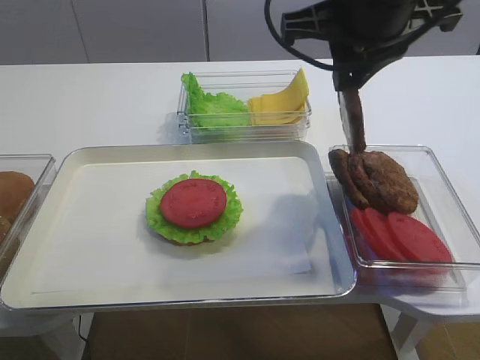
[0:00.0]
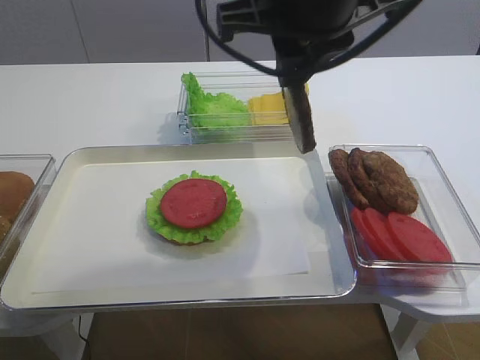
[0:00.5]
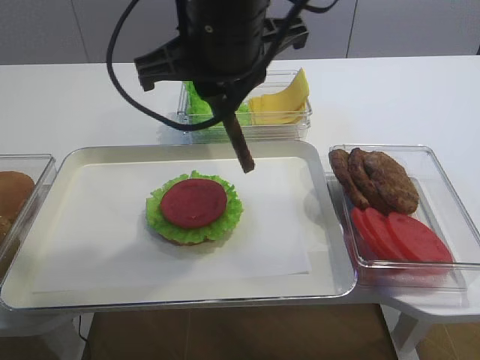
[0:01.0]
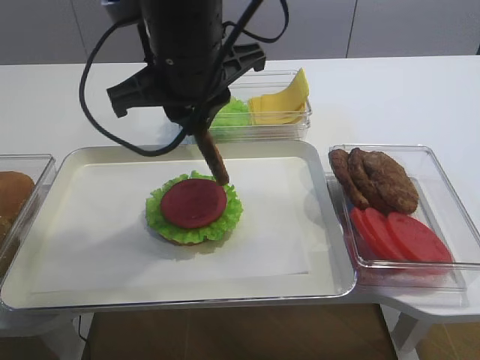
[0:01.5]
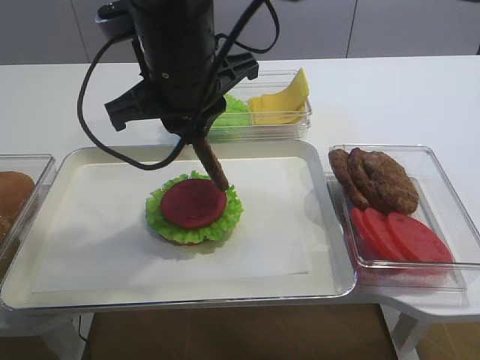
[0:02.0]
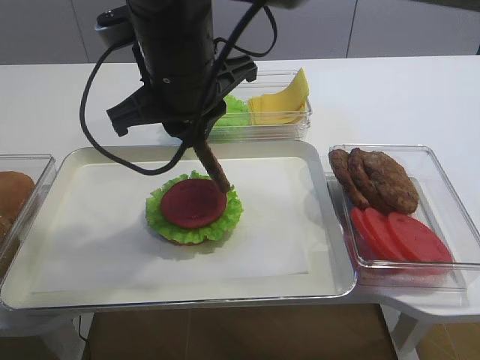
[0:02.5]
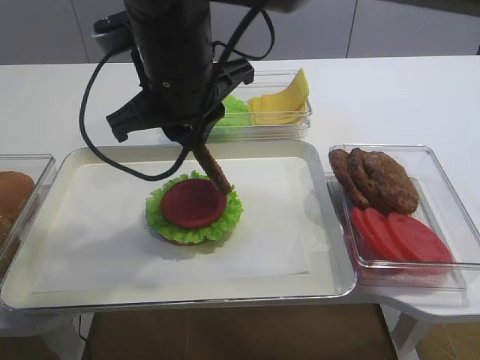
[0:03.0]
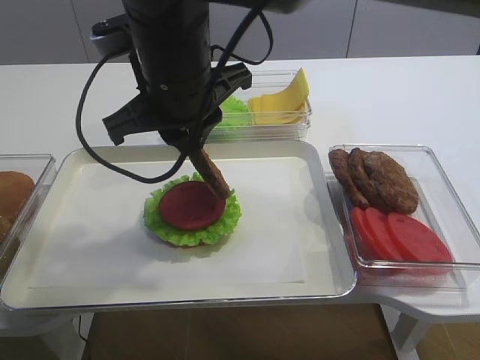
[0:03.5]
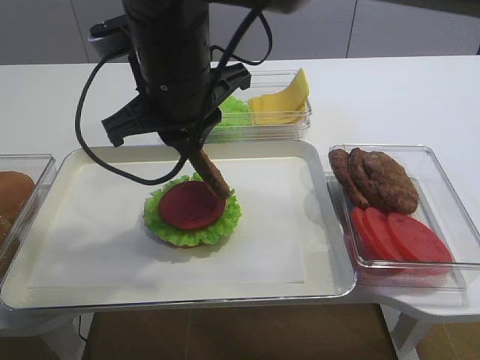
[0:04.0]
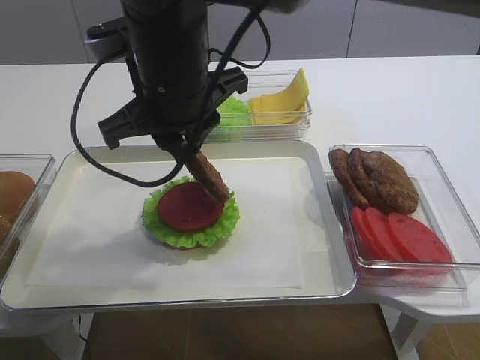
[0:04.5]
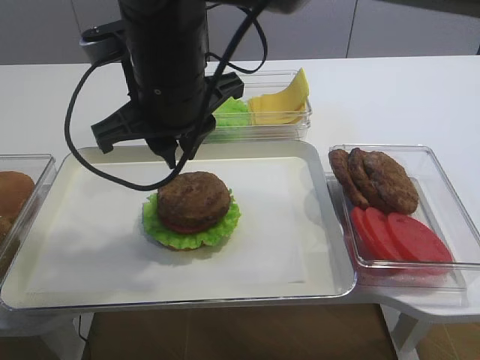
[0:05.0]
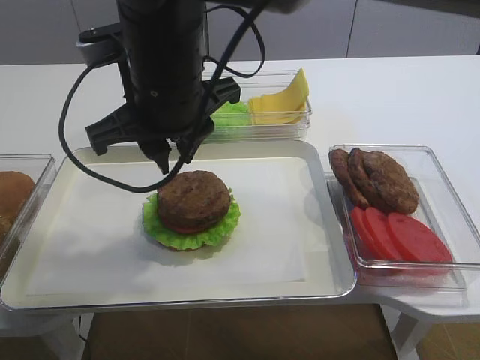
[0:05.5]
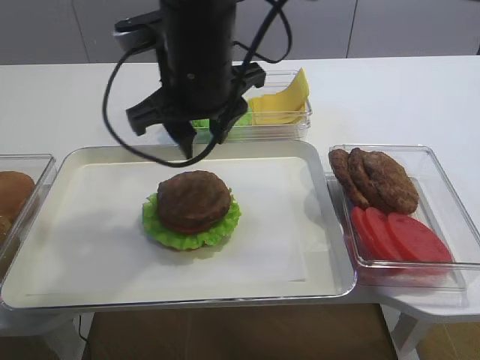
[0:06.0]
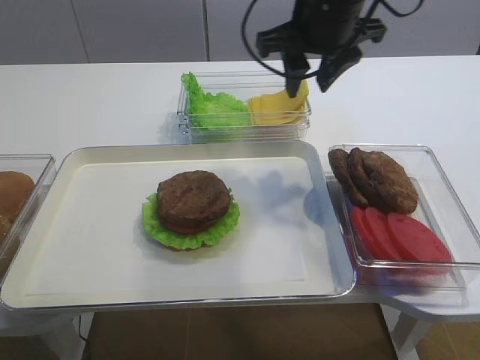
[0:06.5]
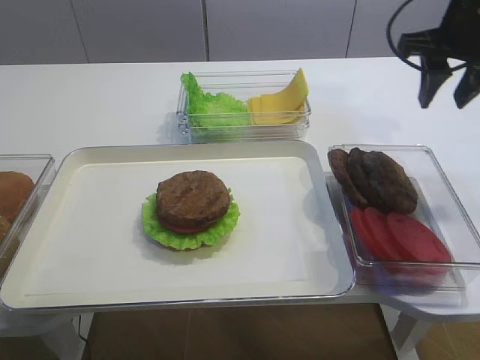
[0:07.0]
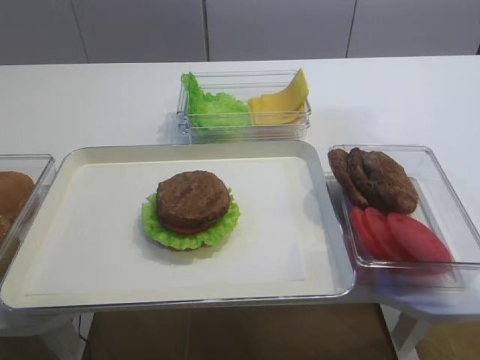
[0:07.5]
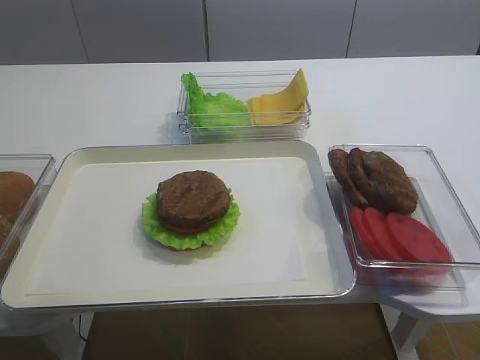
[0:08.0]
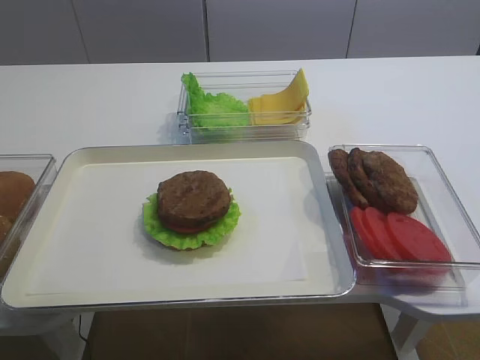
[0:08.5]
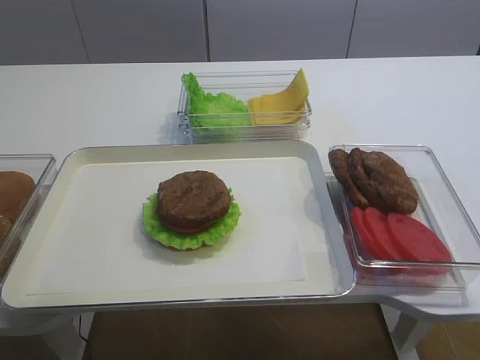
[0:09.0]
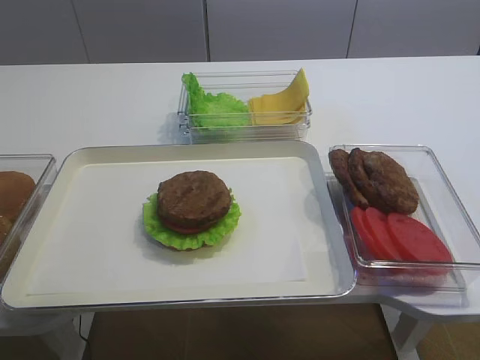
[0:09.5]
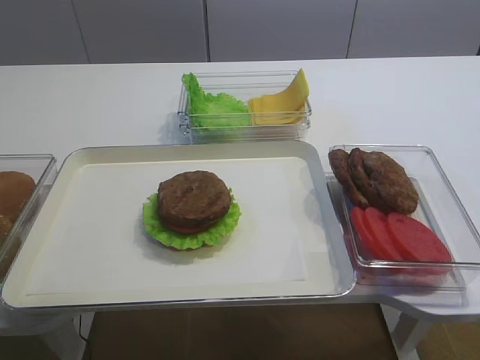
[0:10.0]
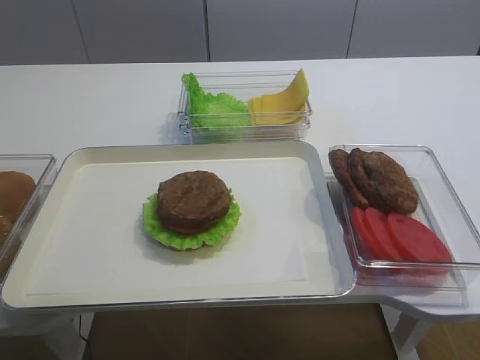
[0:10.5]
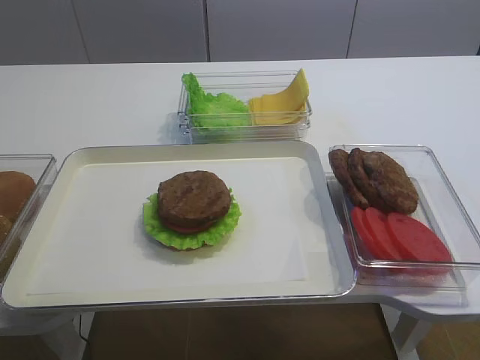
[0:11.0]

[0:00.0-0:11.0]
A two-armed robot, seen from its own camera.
Step, 0:00.0 to 0:05.0: Place the cutlet on the tomato slice with the right gripper.
0:00.0 to 0:02.0: The right gripper moves to the left, some 15 cm.
0:02.0 to 0:03.5: Neither gripper changes place.
0:03.5 to 0:05.5: The grippers make only small movements.
0:05.5 to 0:07.5: The right gripper travels to the right by roughly 35 cm, and opens.
0:07.5 to 0:09.0: The right gripper travels backward by approximately 25 cm.

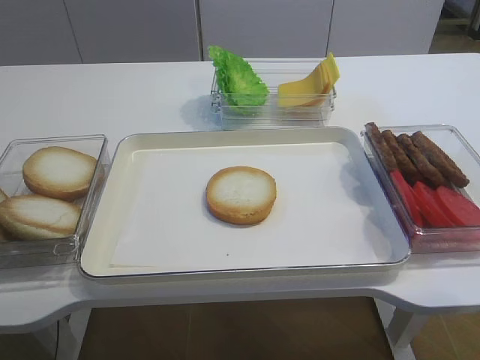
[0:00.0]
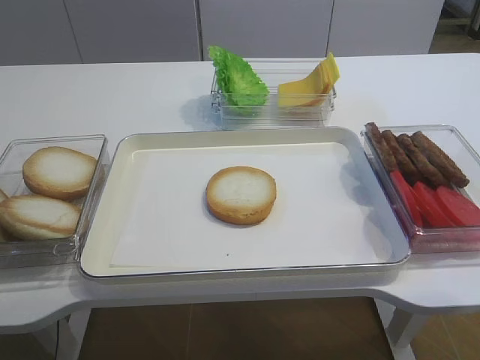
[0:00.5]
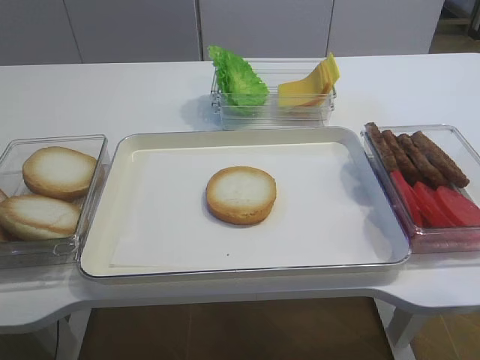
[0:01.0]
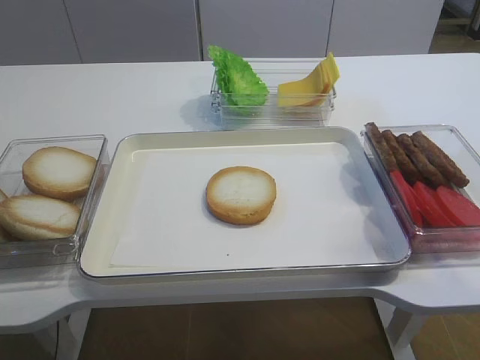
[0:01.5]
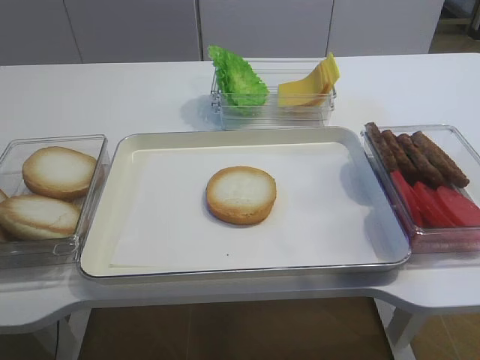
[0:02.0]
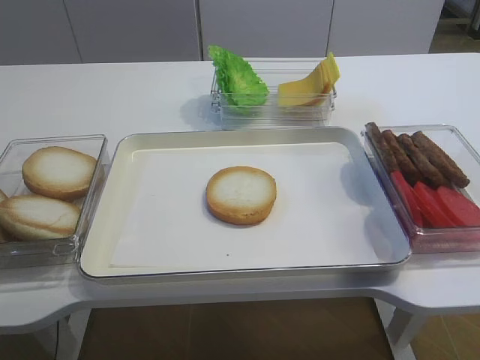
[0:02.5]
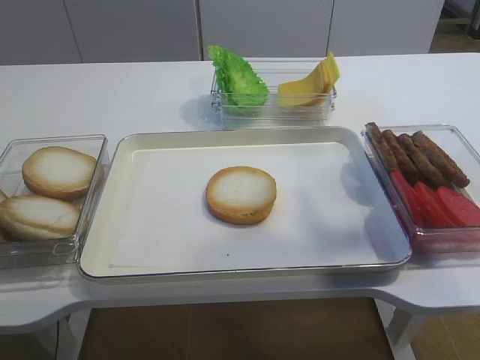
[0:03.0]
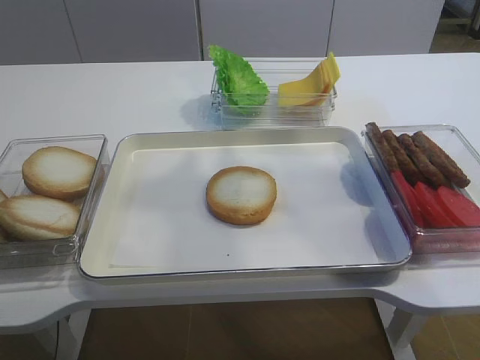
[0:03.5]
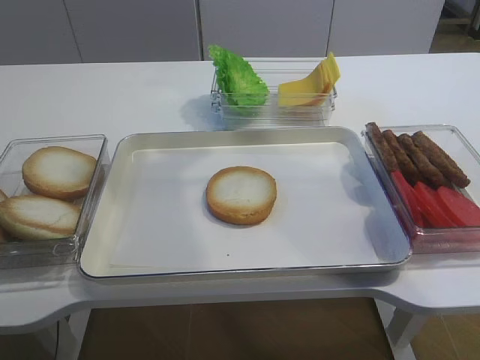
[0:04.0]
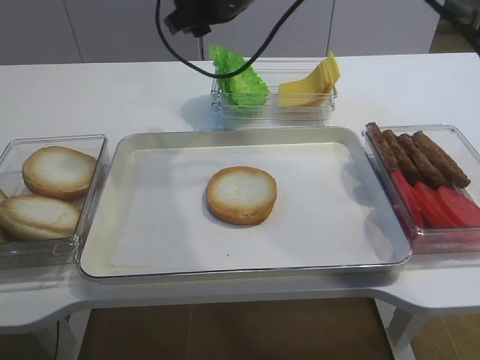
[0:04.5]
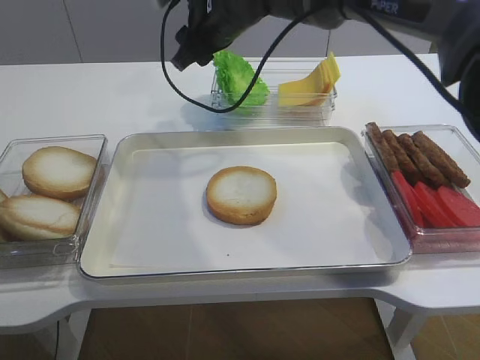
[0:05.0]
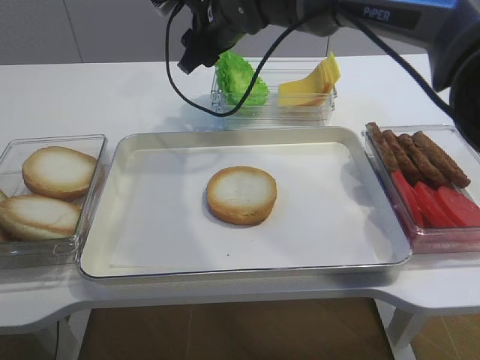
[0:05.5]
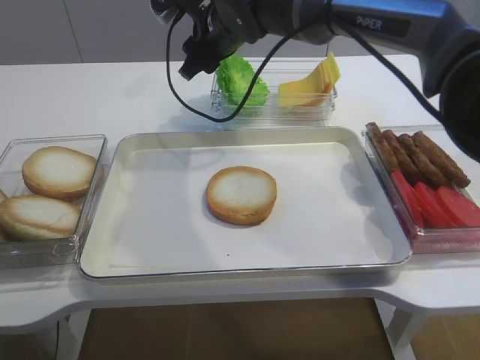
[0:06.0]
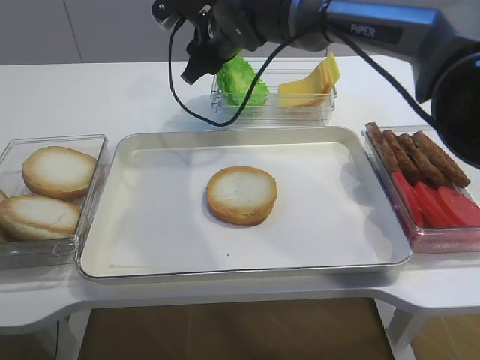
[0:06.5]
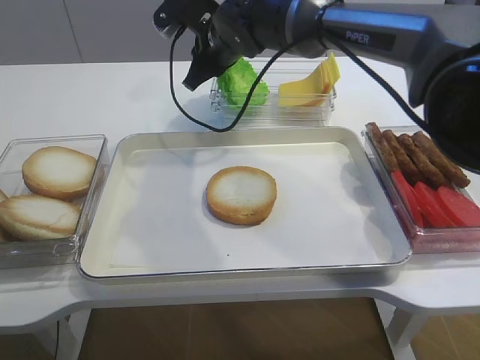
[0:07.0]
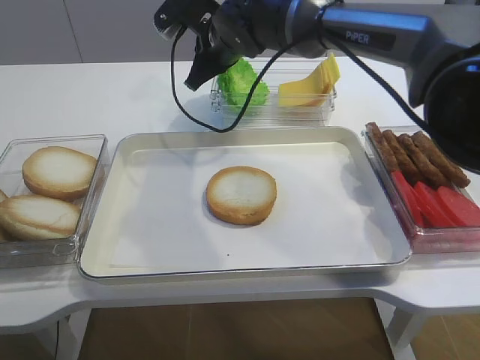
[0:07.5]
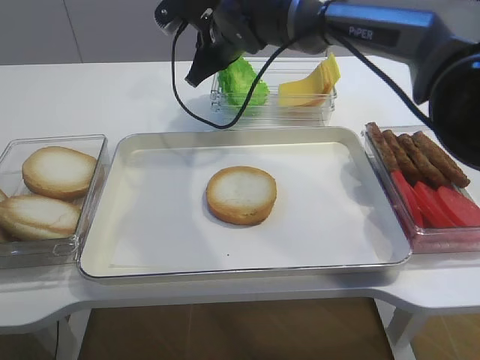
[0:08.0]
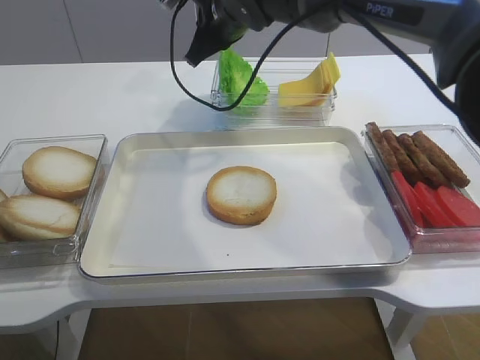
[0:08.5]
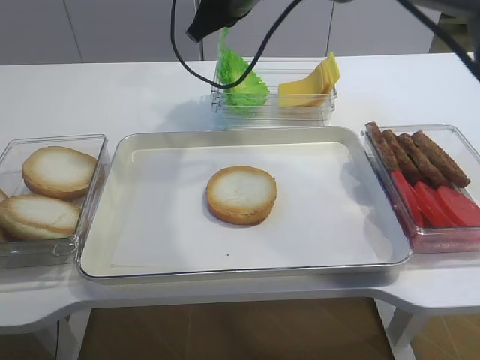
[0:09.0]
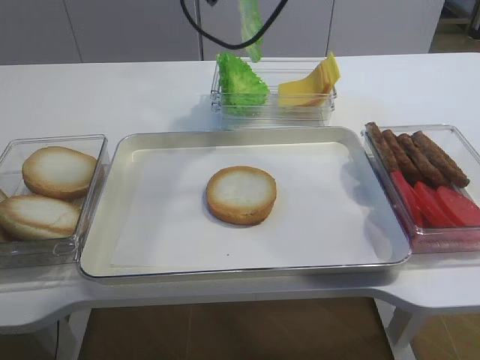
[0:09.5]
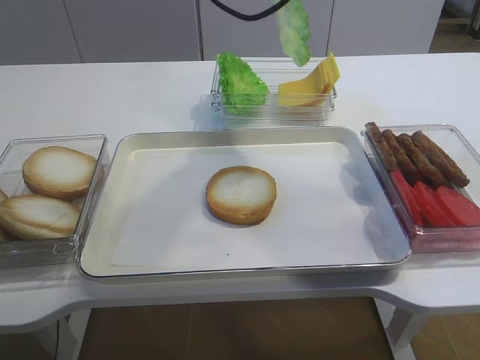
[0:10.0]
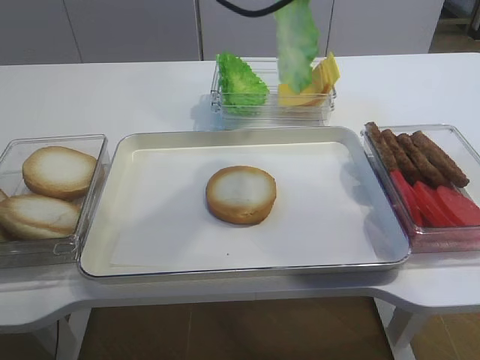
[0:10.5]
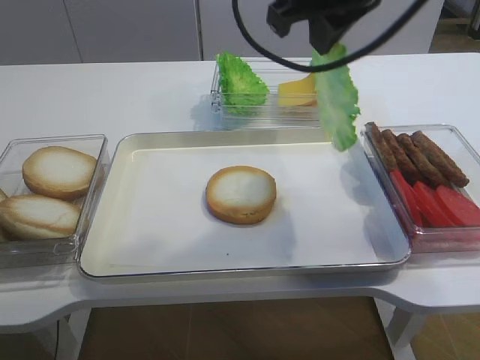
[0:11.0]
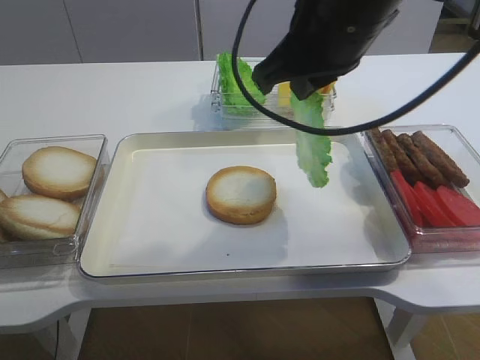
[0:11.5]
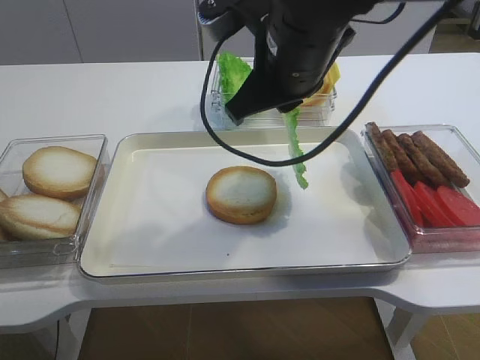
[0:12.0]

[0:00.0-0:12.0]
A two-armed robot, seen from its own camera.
Step, 0:00.0 to 0:09.0: Pick up the lettuce leaf with the right gripper.
0:02.0 to 0:04.0: The right gripper heads forward and to the left, covering some 40 cm.
0:04.0 to 0:06.0: The right gripper is displaced downward and to the left by about 15 cm.
0:06.0 to 0:08.0: The right gripper closes.
0:08.0 to 0:10.0: The right gripper travels upward, backward and to the right by approximately 20 cm.
0:10.0 to 0:12.0: The right gripper travels downward and backward by about 15 cm.

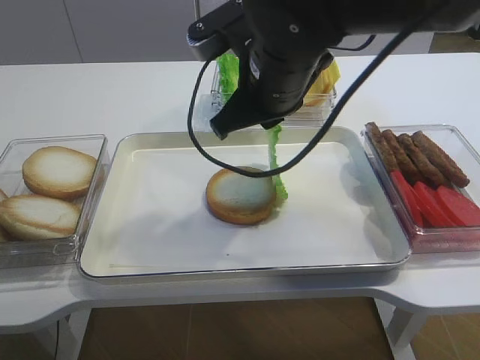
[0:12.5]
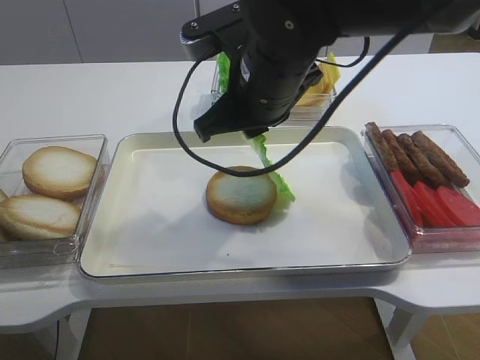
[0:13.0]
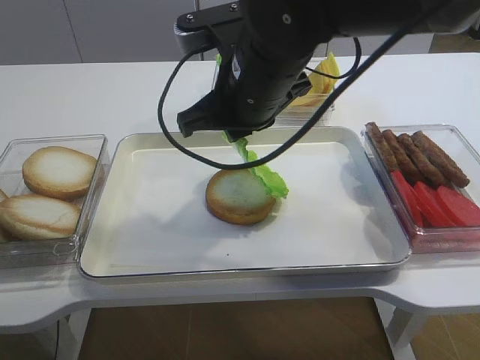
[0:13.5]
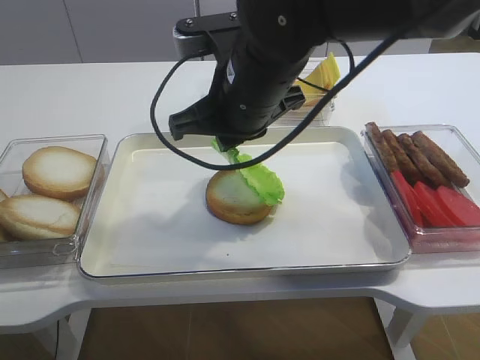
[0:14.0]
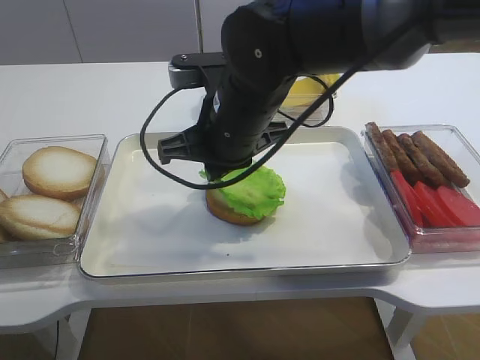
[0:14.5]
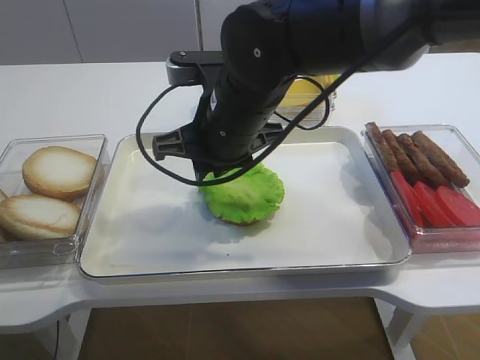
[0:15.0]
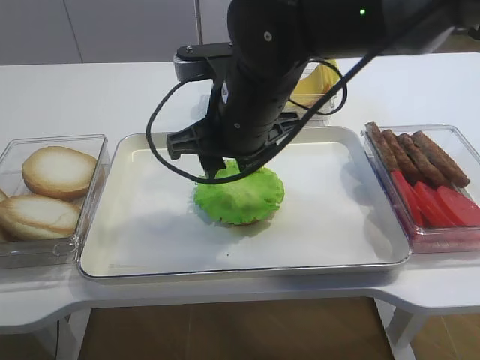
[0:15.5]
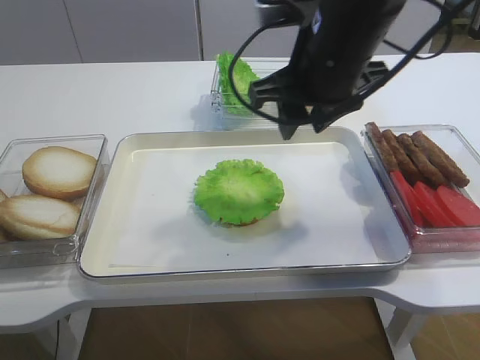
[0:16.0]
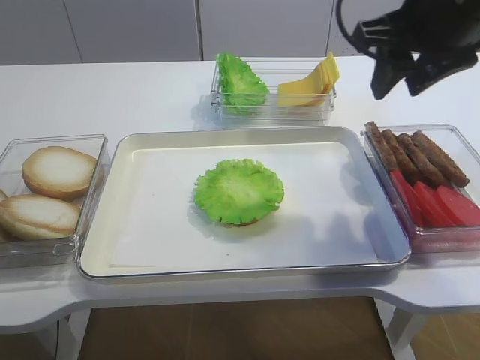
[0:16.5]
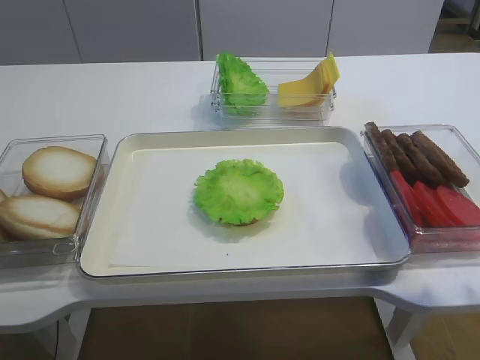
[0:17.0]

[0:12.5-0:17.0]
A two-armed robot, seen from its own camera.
Step, 0:12.5 to 0:15.0: Place the lettuce leaf on the bread slice with the right gripper.
0:12.5 to 0:14.5: The right gripper shifts by about 5 cm.
0:14.5 to 0:17.0: The right gripper moves to the right, roughly 25 cm, and opens up.
